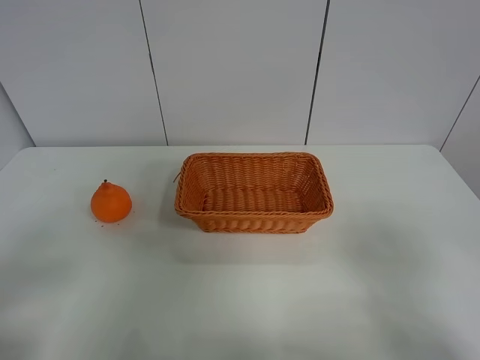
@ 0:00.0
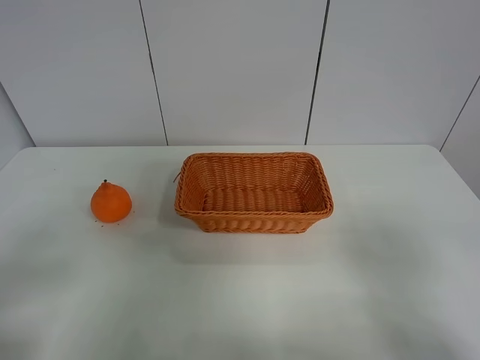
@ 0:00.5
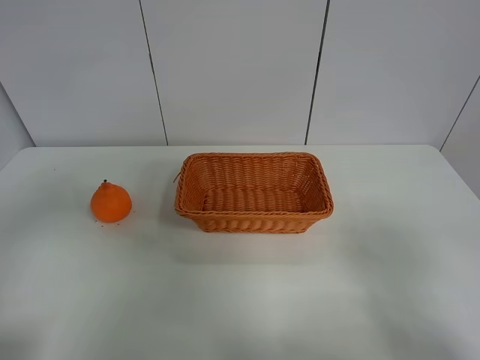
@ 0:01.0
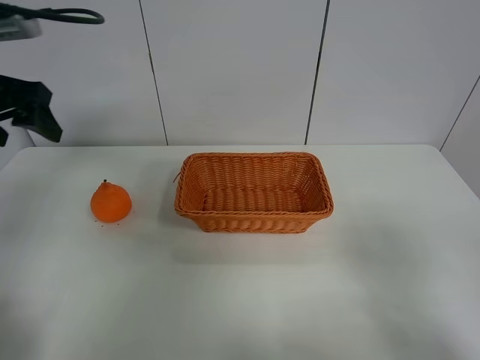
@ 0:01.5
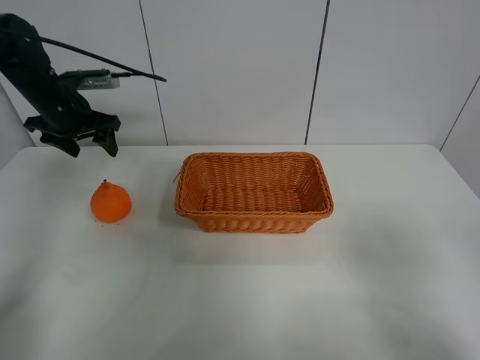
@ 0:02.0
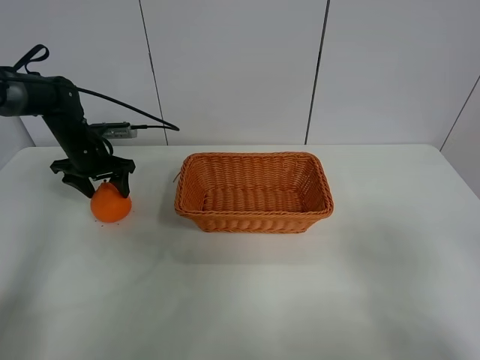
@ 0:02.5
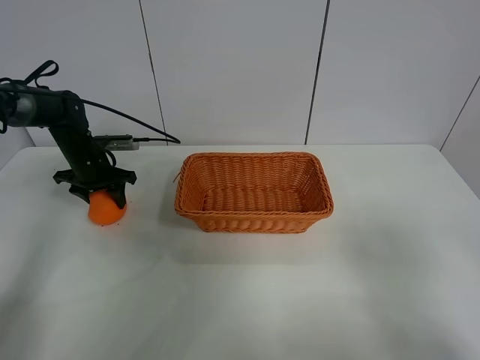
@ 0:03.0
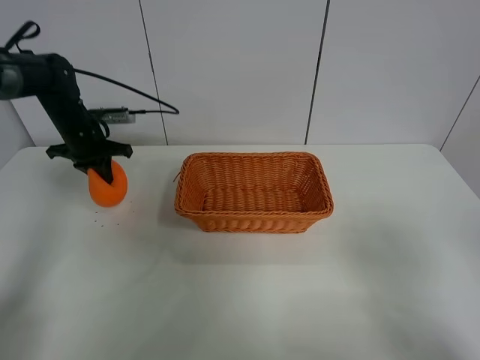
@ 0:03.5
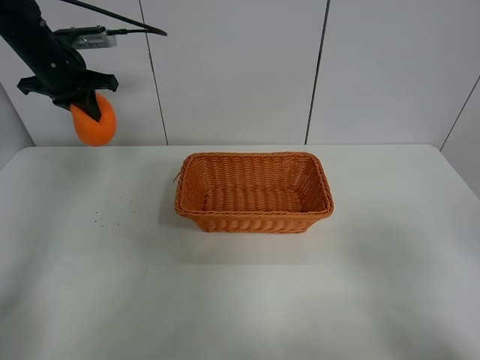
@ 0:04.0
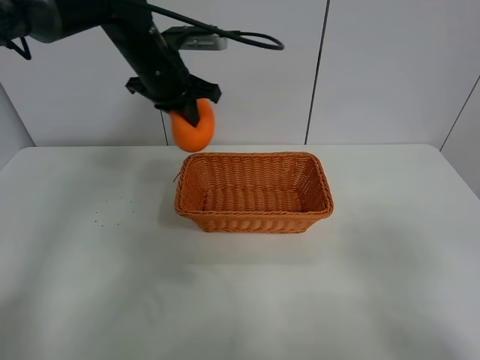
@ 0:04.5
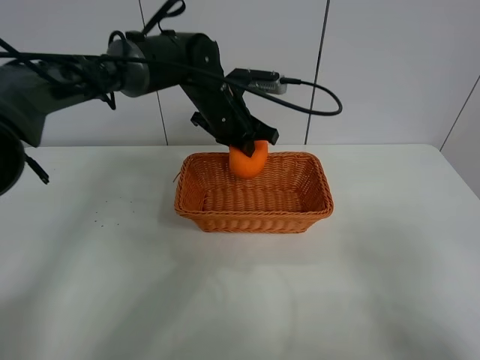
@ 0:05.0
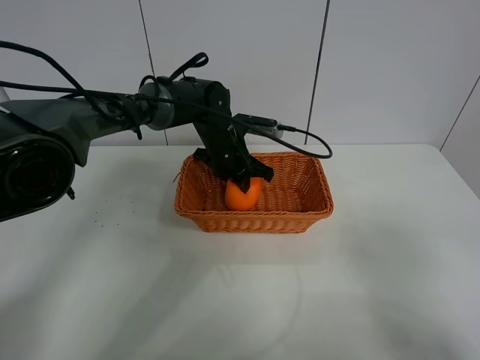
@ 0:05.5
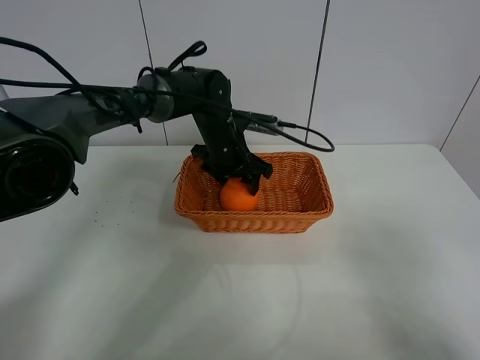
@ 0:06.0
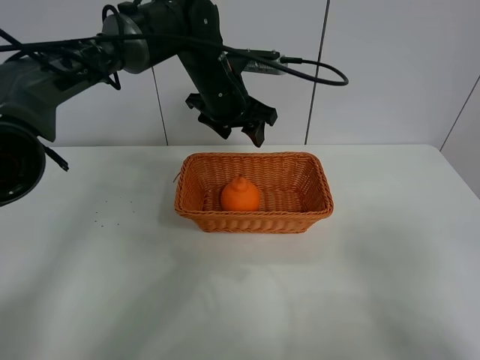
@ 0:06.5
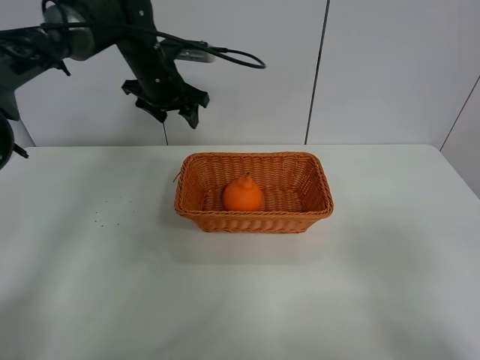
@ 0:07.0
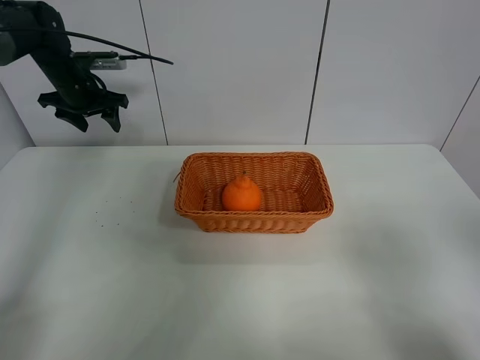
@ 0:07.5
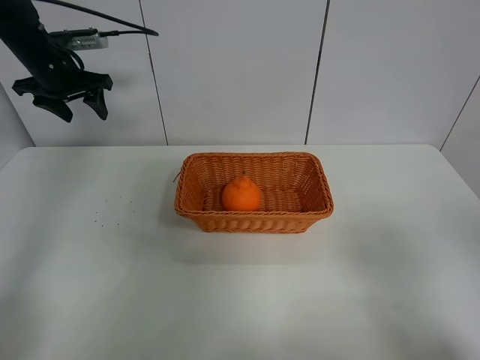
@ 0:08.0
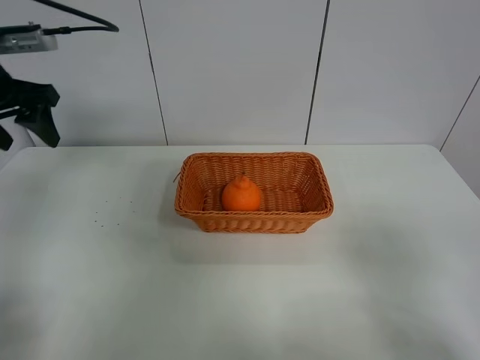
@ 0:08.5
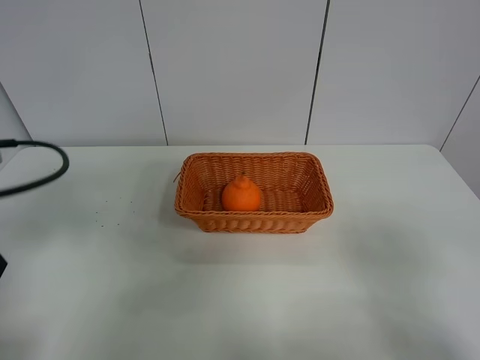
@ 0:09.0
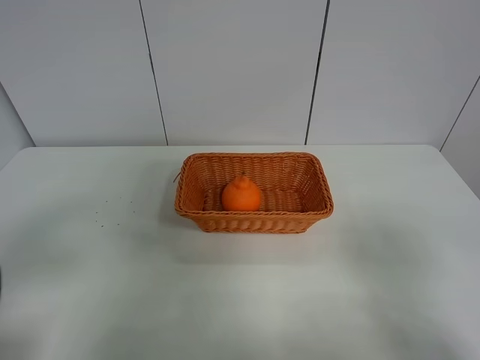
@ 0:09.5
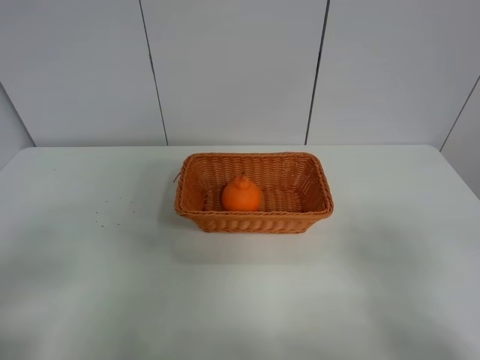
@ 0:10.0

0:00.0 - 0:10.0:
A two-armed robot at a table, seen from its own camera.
Task of the whole recording: left gripper grabs oranges and puts them in the basket.
Step, 0:00.0 - 0:03.0: Grasp the orange with left gripper.
Step, 0:03.5 - 0:07.0: Place the orange in the basket with left gripper.
0:00.0 - 0:02.0: The left gripper is displaced forward by roughly 40 cm.
0:02.0 - 0:04.0: The left gripper goes approximately 5 cm upward, and closes up.
0:04.0 - 0:06.0: The left gripper travels to the right and downward by some 30 cm, and opens its fingers.
0:06.0 - 0:08.0: The left gripper goes roughly 30 cm to the left and upward.
0:08.0 - 0:10.0: The left gripper shifts about 50 cm backward.

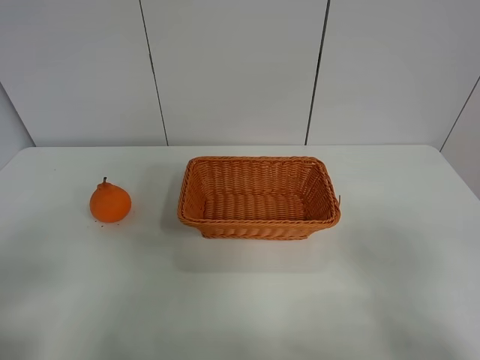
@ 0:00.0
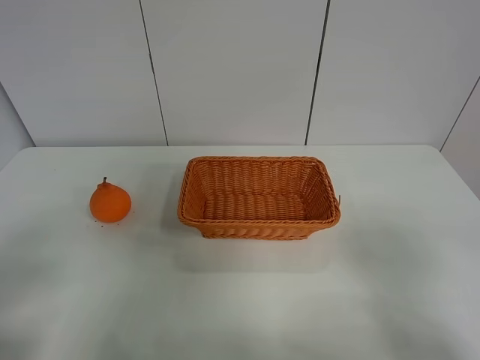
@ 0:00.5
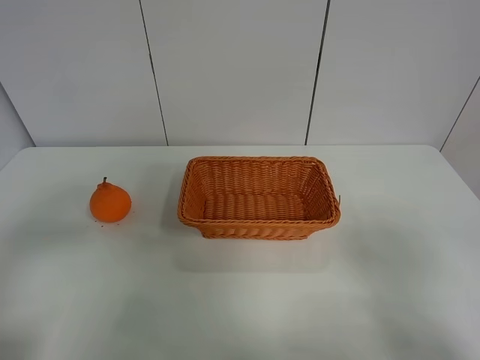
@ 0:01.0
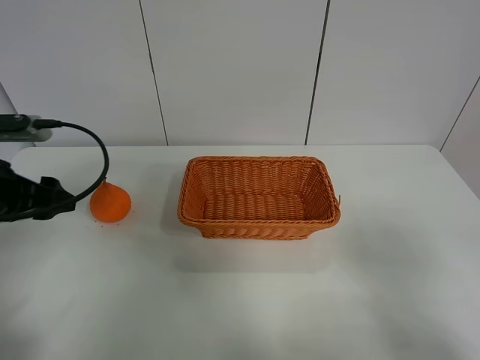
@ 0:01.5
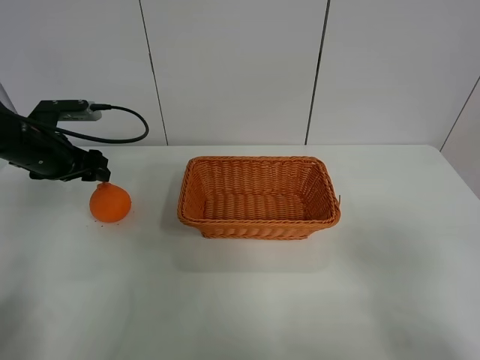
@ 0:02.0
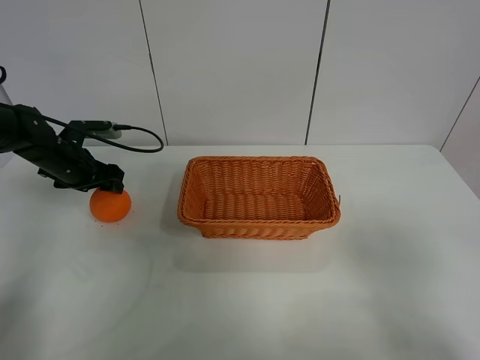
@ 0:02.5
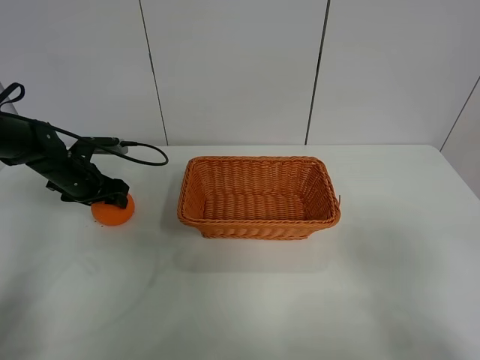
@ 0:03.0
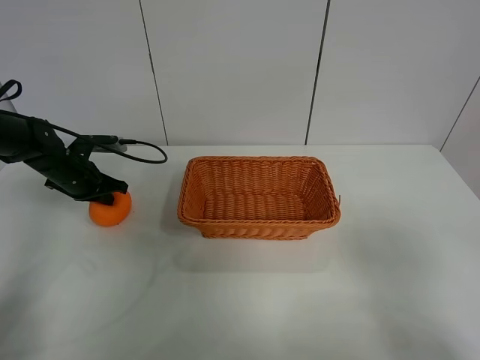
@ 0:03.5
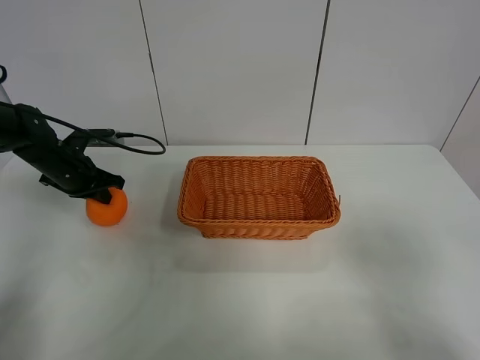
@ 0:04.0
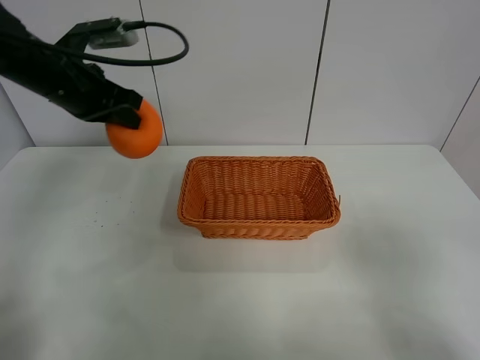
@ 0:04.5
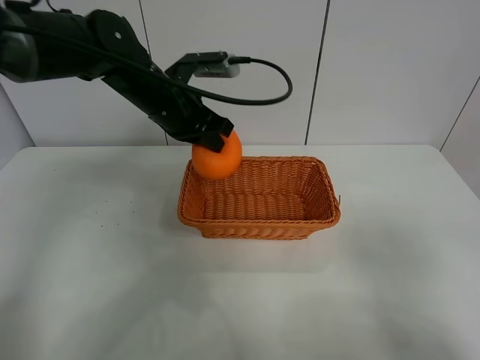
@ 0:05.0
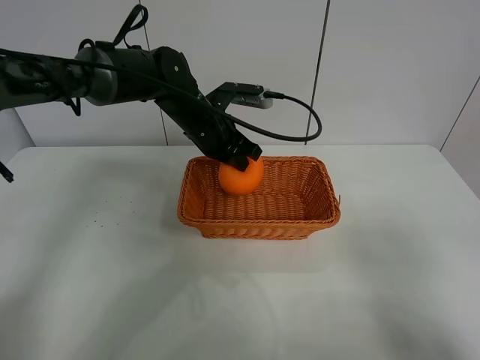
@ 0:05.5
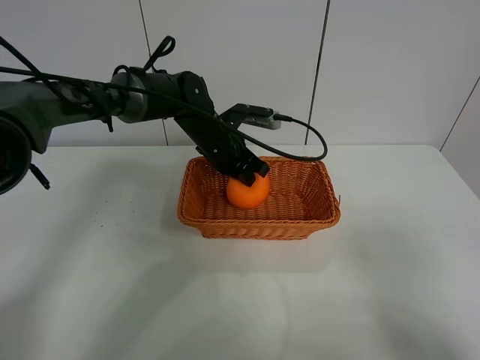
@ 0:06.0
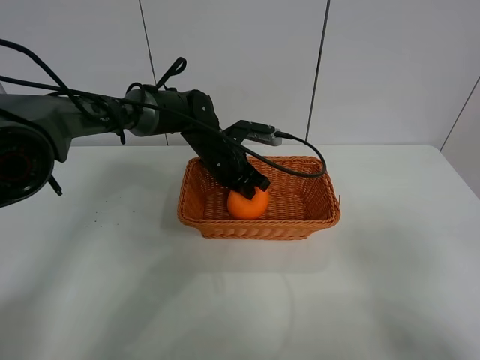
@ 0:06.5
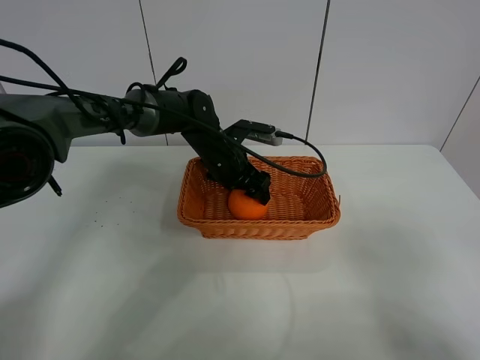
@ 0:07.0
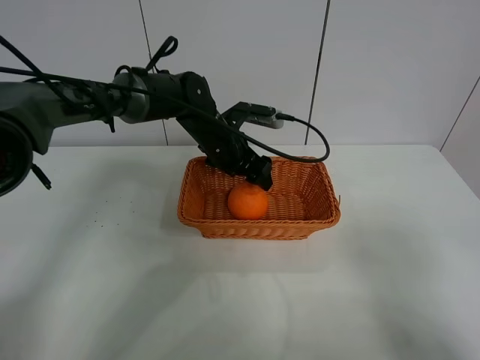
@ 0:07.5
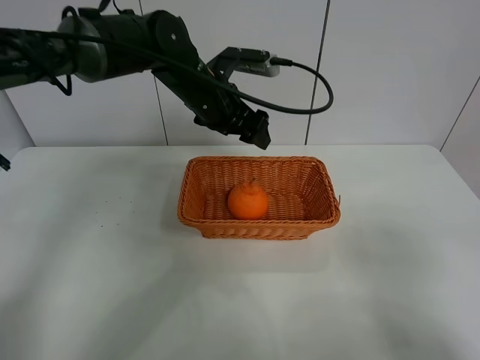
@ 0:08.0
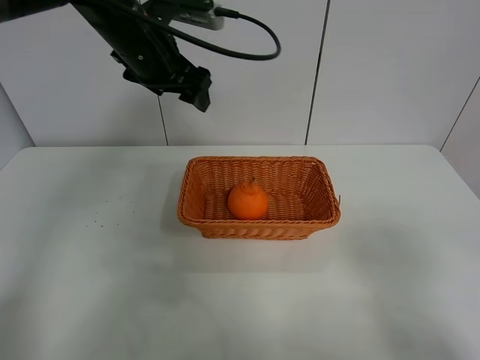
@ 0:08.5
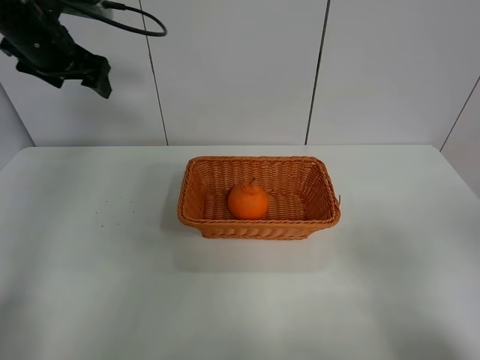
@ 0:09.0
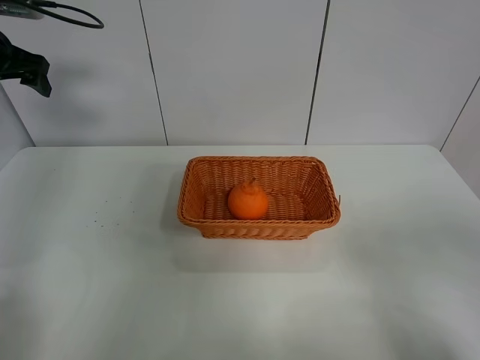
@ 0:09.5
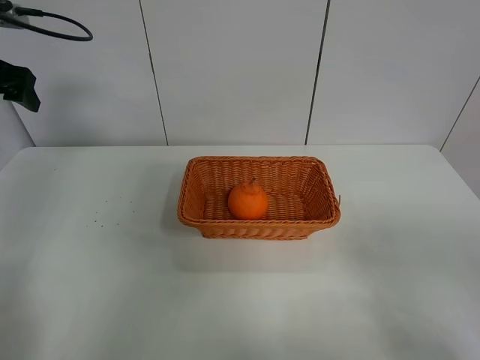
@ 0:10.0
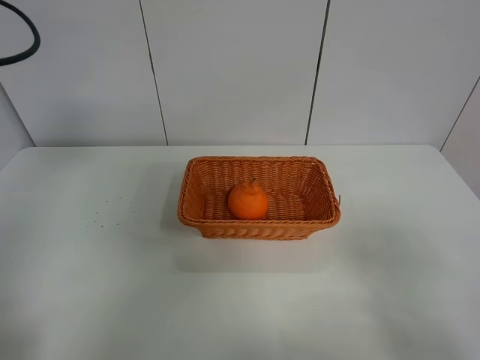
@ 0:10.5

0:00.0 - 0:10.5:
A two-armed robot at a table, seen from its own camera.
Task of the whole recording: left gripper grabs oranges and puts them in the basket.
Step, 0:00.0 - 0:03.5: Grasp the orange with left gripper.
Step, 0:04.0 - 0:08.5: Place the orange in the basket with left gripper.
0:00.0 - 0:02.0: The left gripper goes approximately 35 cm forward.
0:02.0 - 0:04.0: The left gripper closes its fingers.
0:04.0 - 0:06.5: The left gripper moves to the right, approximately 25 cm.
0:06.5 - 0:08.5: The left gripper shifts some 20 cm upward and to the left, and opens.
0:08.5 - 0:10.5: The left gripper heads to the left and backward, covering roughly 25 cm.
